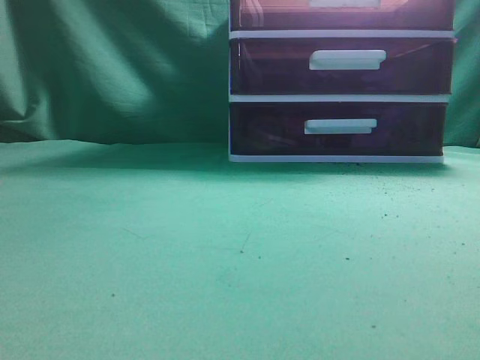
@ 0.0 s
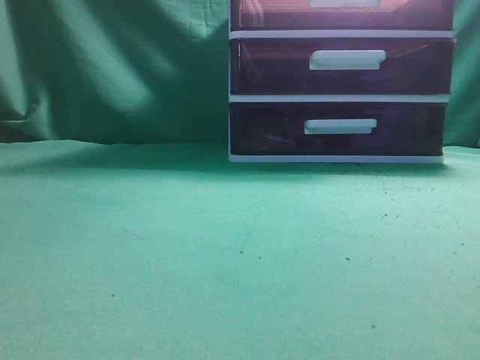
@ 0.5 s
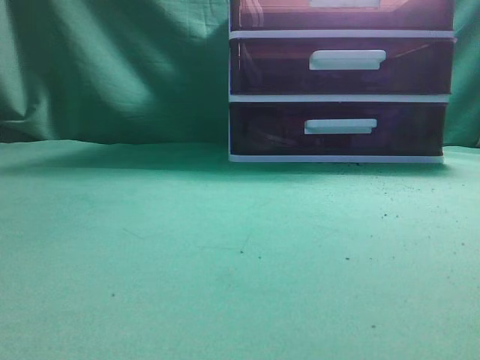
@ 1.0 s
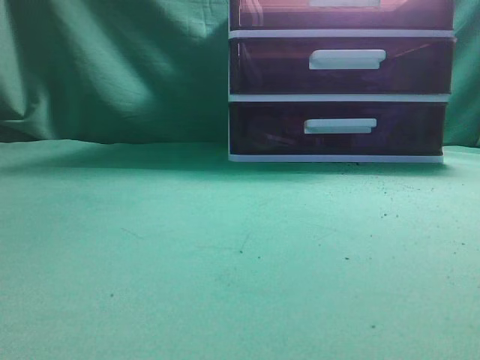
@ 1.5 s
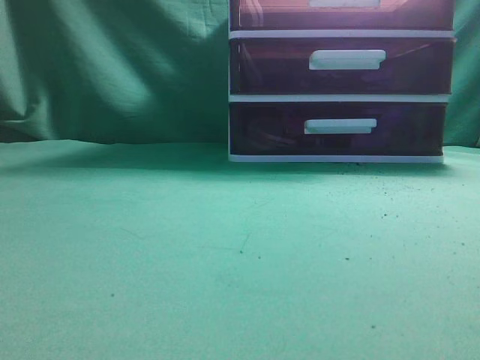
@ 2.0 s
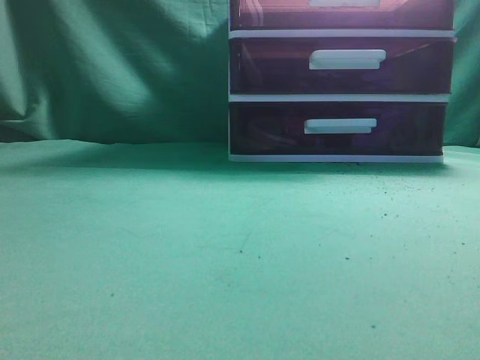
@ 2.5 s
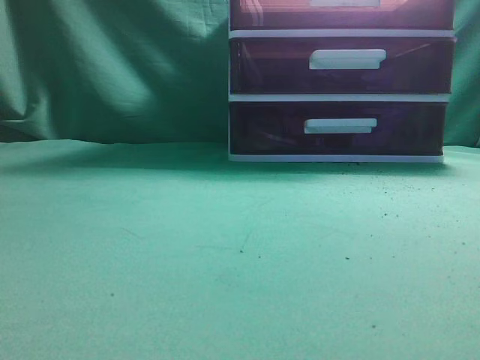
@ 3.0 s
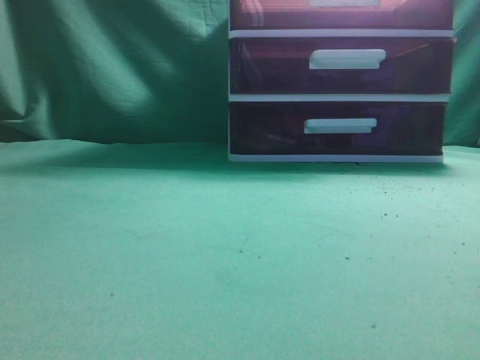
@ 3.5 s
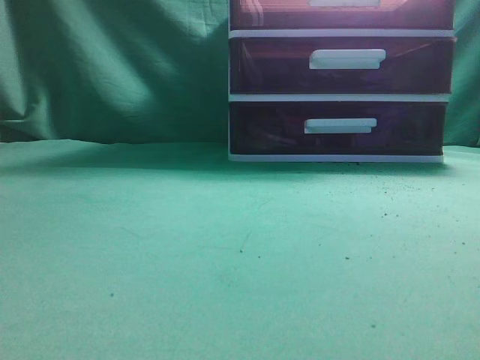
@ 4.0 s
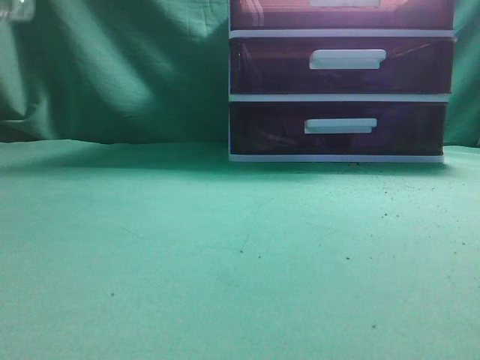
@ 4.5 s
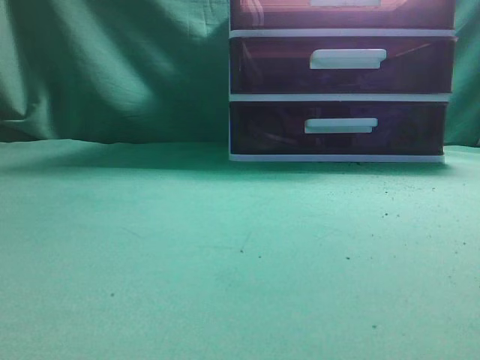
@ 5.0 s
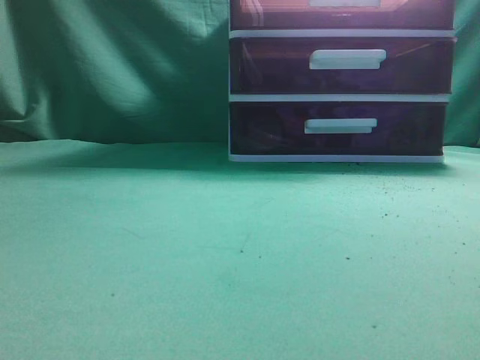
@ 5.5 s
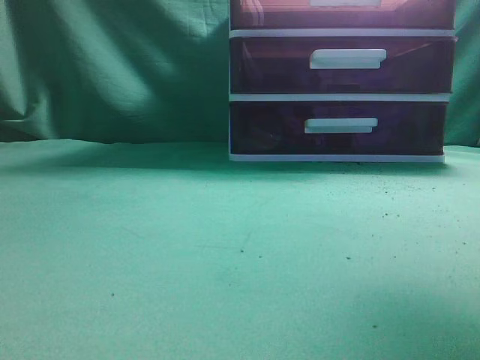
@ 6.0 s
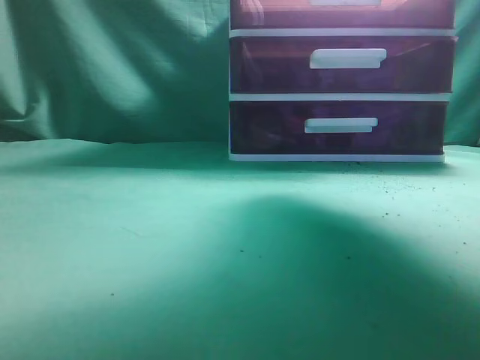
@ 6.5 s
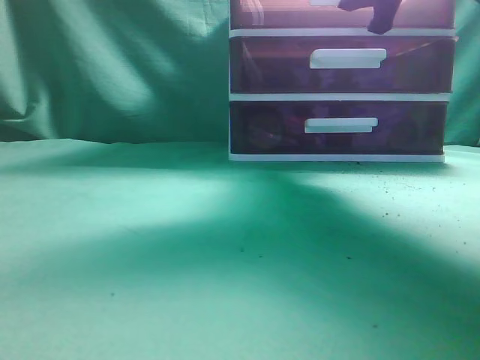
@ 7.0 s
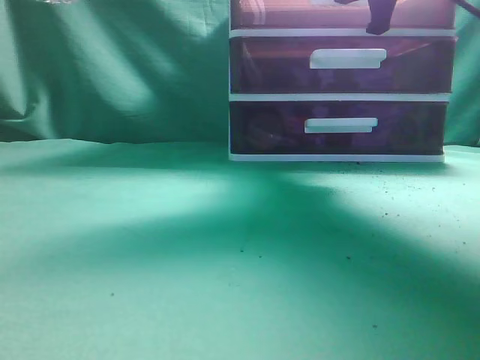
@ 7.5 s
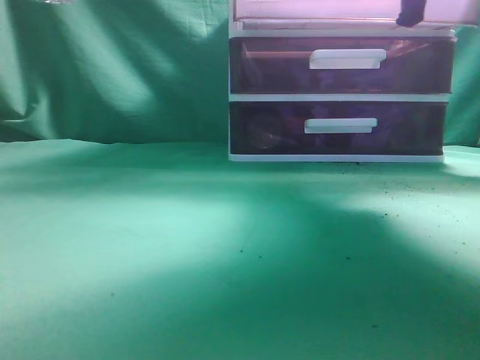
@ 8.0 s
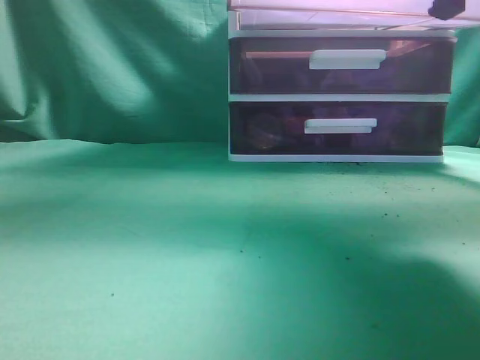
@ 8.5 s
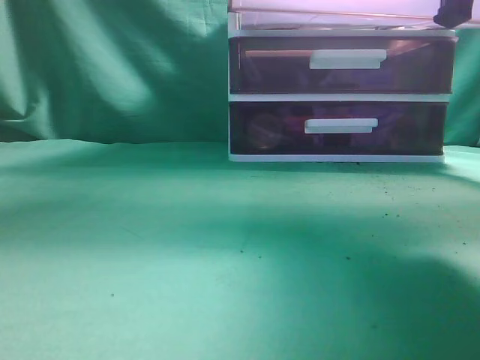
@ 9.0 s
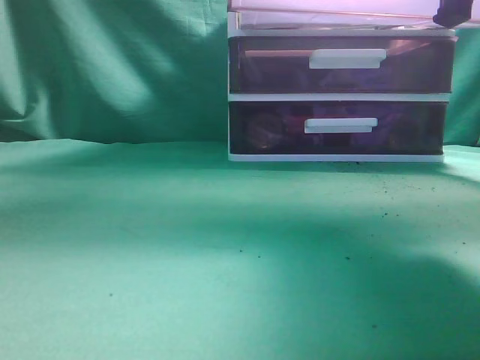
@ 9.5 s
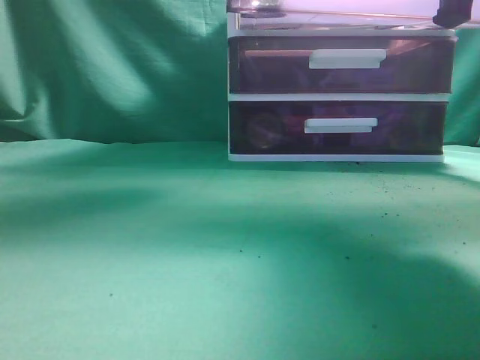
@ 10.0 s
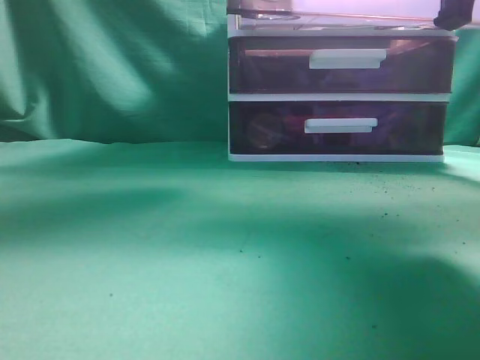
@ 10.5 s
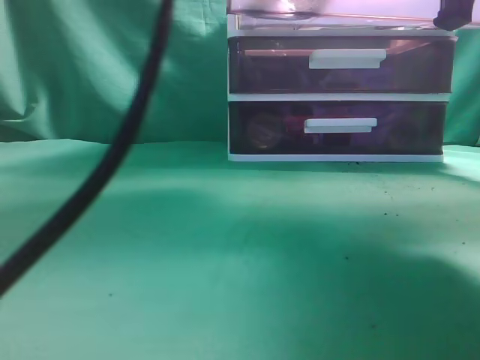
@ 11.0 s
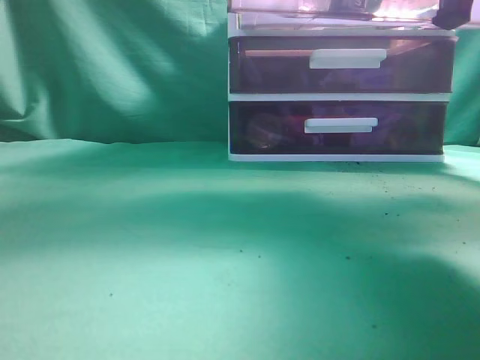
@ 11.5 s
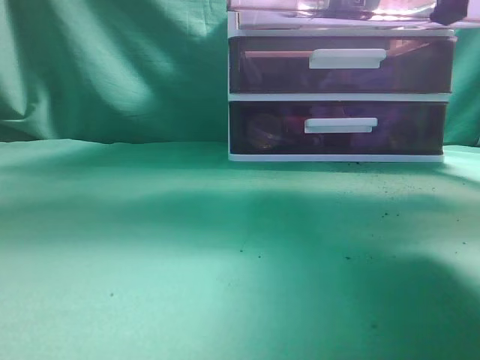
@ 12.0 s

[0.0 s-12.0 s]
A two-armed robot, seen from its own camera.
Task of the whole recording: place the water bottle into the drawer.
Step, 0.0 to 8.5 s: Open the drawer.
Step, 9.0 to 11.5 s: Place the water bottle inside the drawer.
4.0 to 6.0 s: The right gripper goes about 30 cm forward and upward.
6.0 to 8.0 s: The right gripper heads forward and downward, covering about 15 cm, and opens, then closes once more.
8.0 to 10.0 s: The left gripper is displaced forward and to the right by about 20 cm. Meanwhile the right gripper goes some 10 cm backward.
10.0 to 12.0 s: The left gripper goes roughly 10 cm upward, reaches roughly 10 cm to the right, then returns, and closes up.

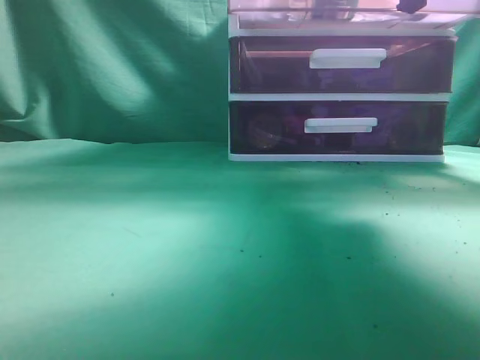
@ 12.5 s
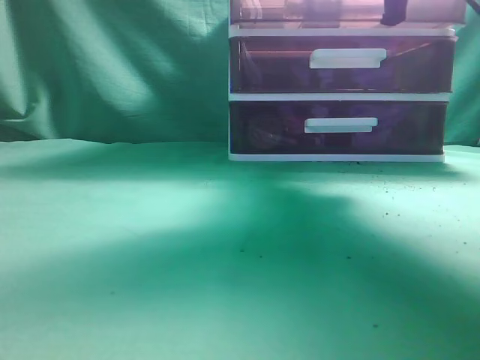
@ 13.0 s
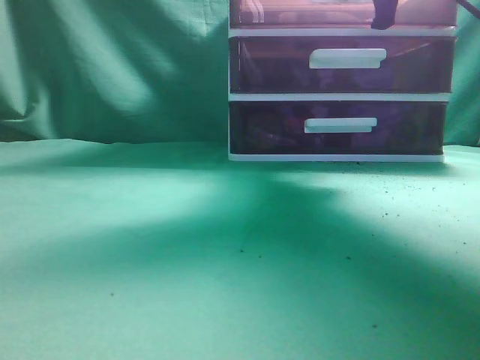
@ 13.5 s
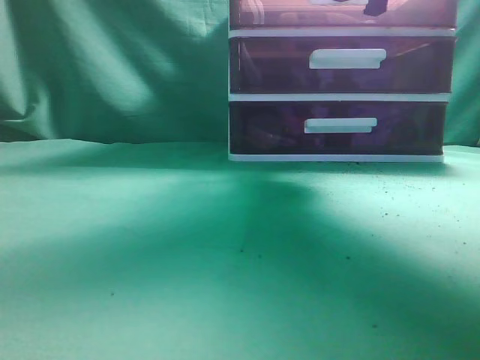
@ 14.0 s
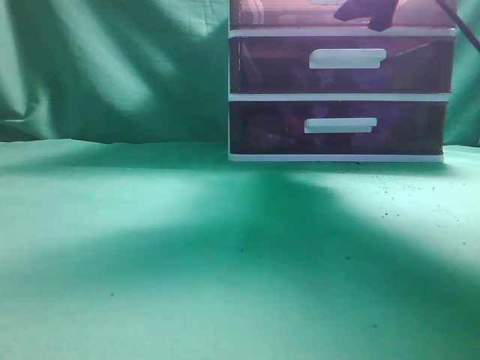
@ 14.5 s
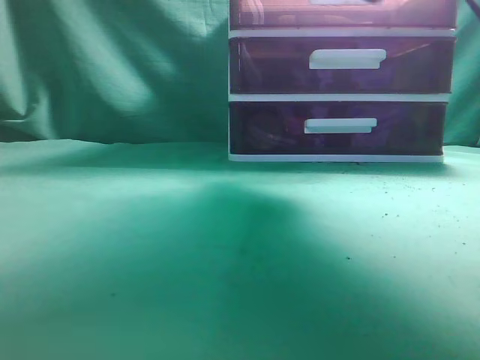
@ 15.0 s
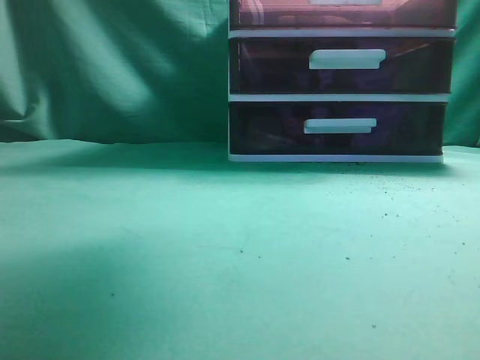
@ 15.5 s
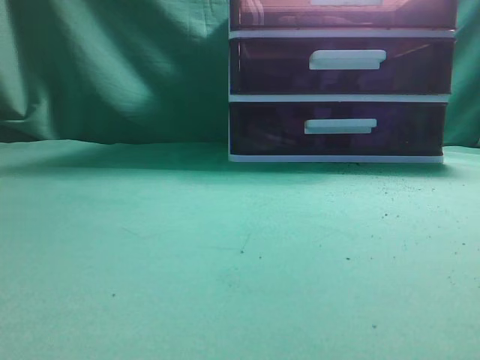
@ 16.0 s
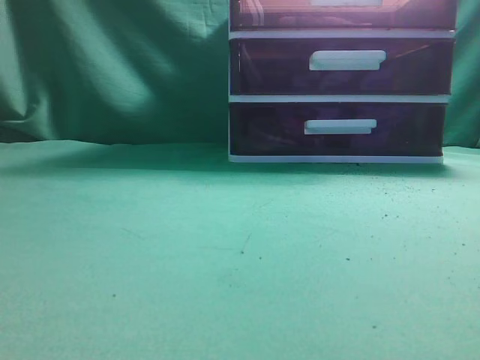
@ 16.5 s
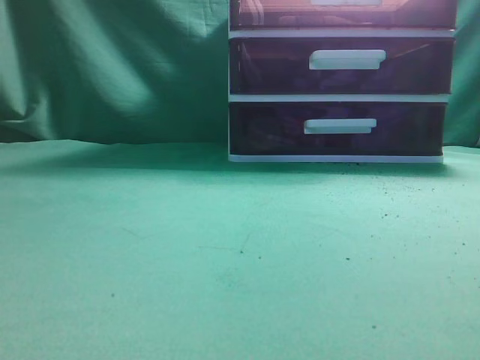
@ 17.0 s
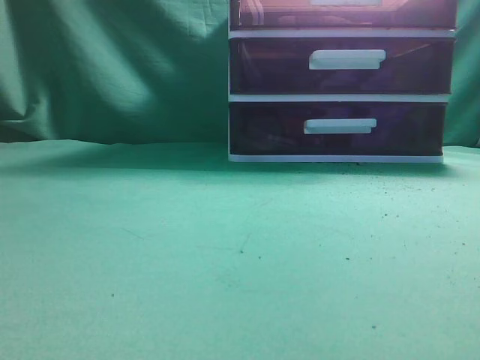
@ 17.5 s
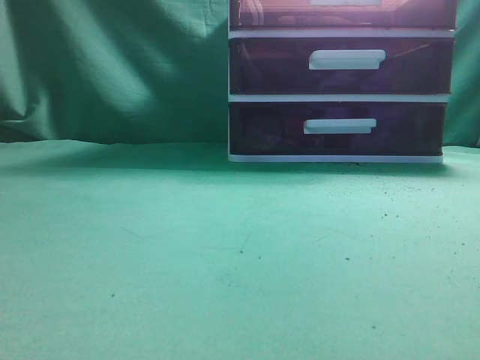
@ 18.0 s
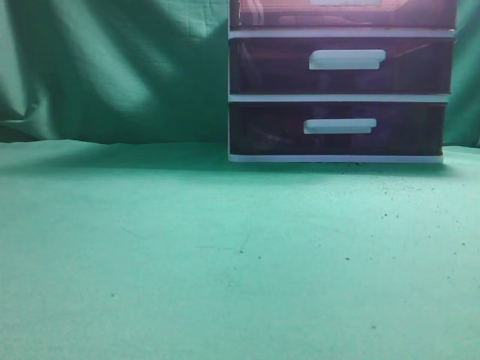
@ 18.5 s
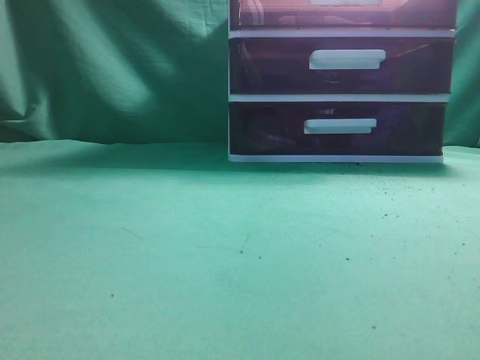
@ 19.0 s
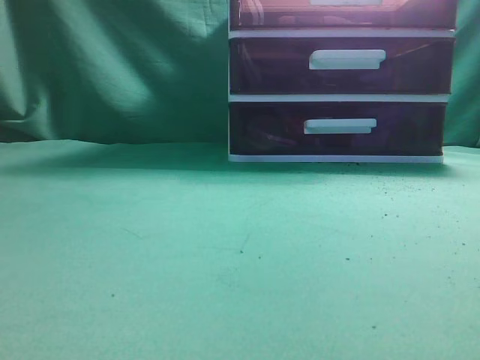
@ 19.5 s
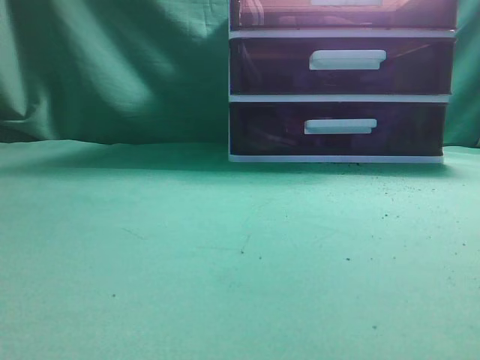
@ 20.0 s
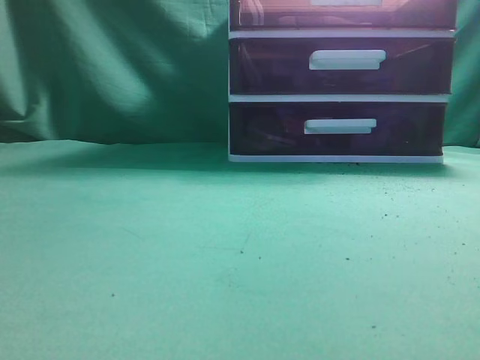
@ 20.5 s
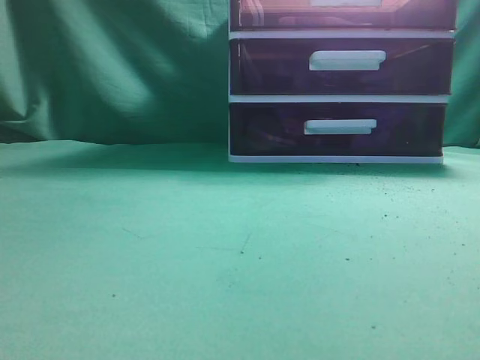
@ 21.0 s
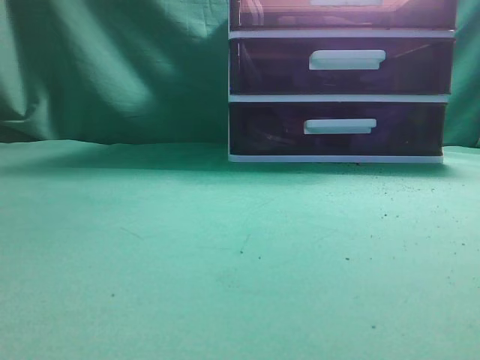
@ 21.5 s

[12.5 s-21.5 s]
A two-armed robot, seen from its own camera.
Task of the whole recording: place the water bottle into the drawer.
Step, 12.5 to 15.0 s: Close the drawer.
12.5 to 14.5 s: The right gripper moves forward, roughly 5 cm, and opens up; the left gripper shifts by some 5 cm.
14.5 to 17.0 s: The right gripper goes about 35 cm backward, and closes its fingers, while the left gripper moves backward, downward and to the left, about 25 cm.

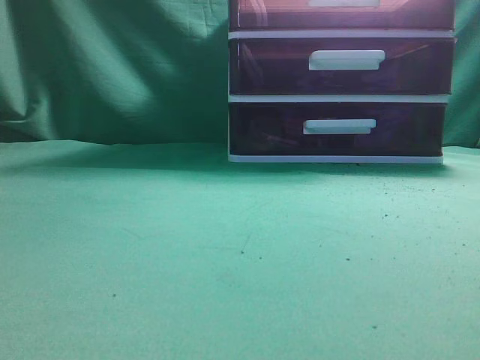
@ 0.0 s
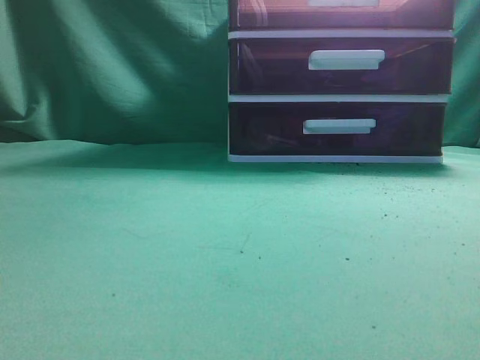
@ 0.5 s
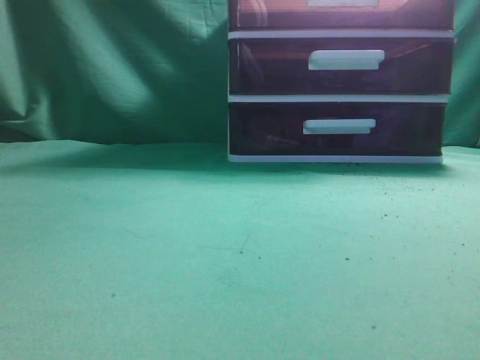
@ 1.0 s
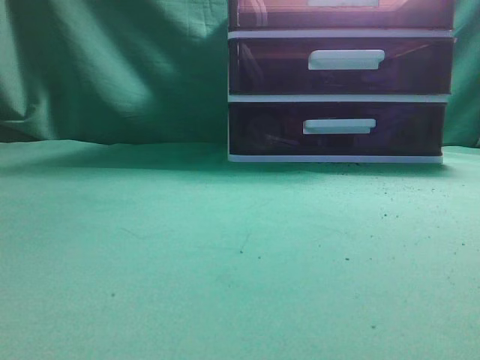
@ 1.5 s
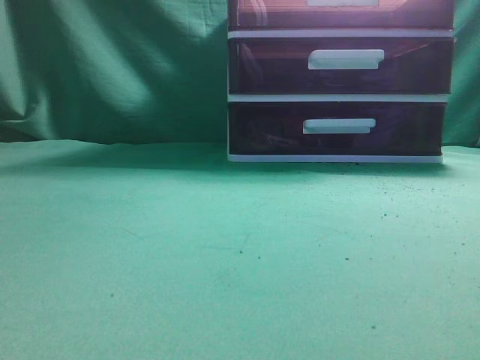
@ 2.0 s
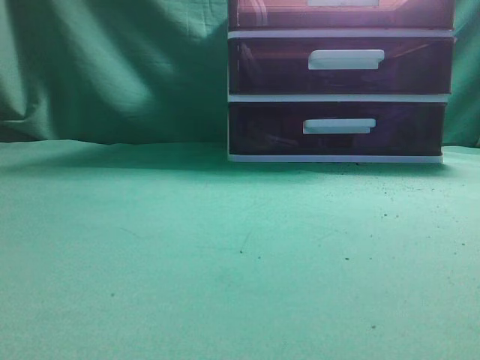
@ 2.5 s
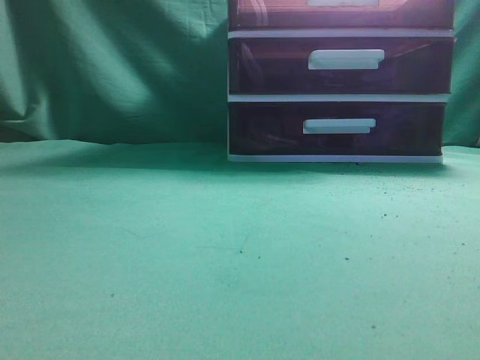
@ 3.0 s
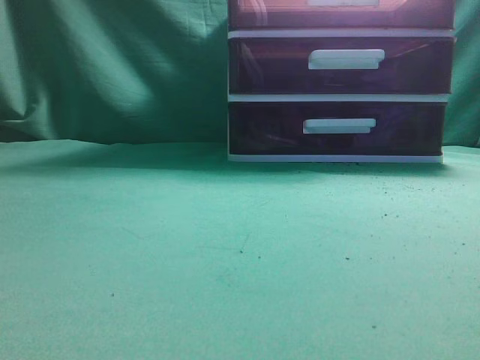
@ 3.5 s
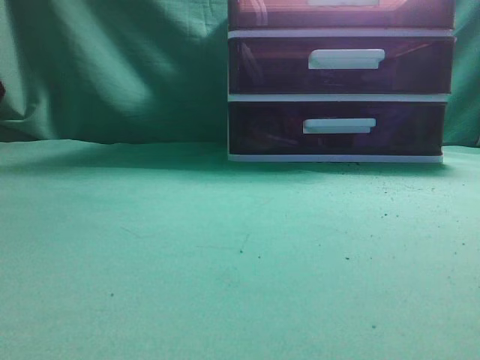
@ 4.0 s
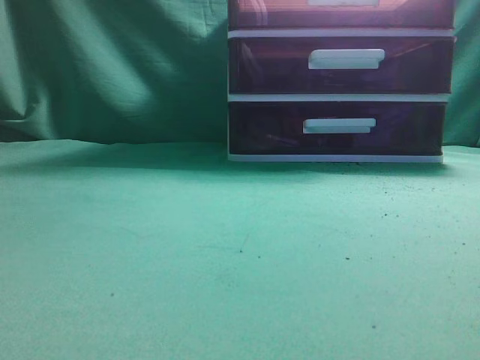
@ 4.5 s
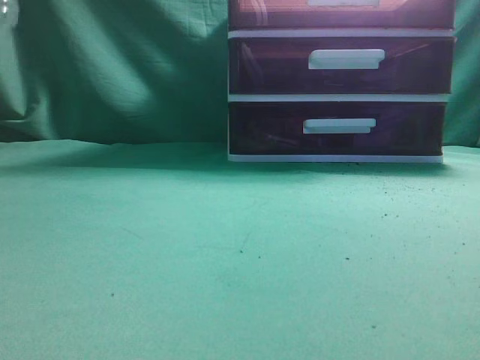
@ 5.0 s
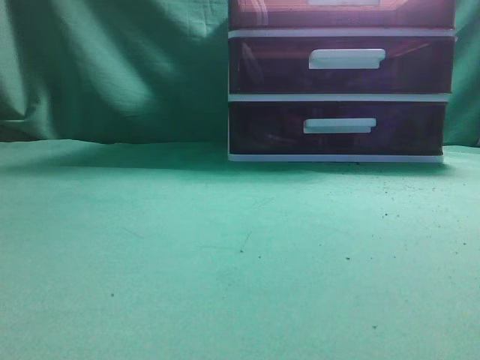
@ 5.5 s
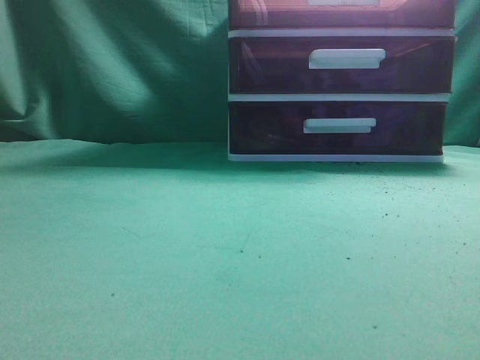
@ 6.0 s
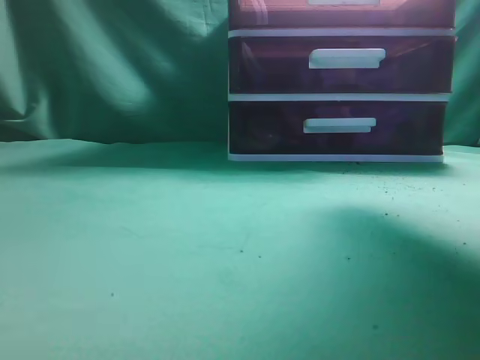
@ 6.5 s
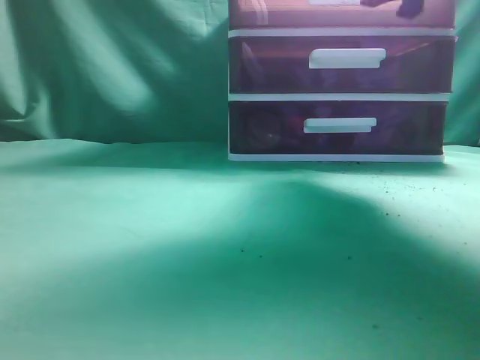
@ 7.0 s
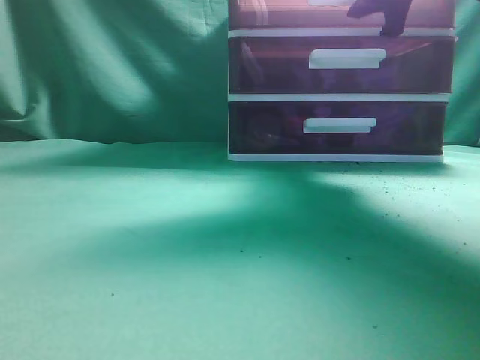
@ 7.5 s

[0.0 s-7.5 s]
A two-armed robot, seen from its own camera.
Task of the whole recording: place the water bottle into the drawer.
5.5 to 7.5 s: The right gripper is displaced forward by about 35 cm, and opens its fingers.
